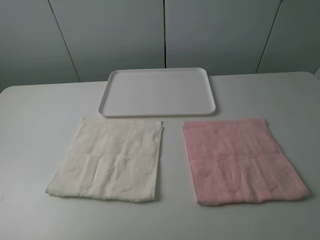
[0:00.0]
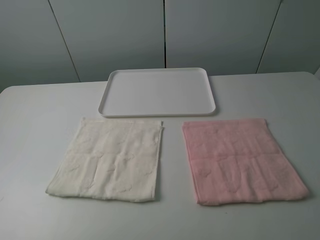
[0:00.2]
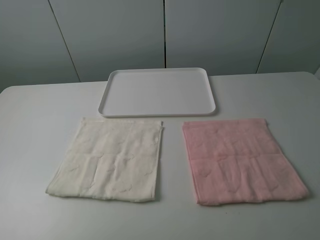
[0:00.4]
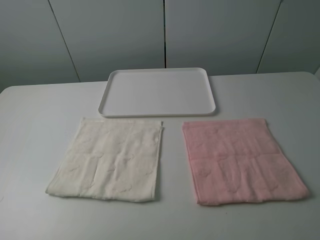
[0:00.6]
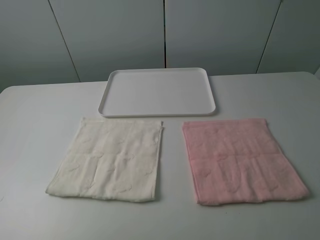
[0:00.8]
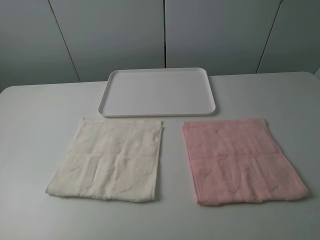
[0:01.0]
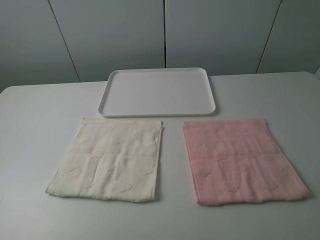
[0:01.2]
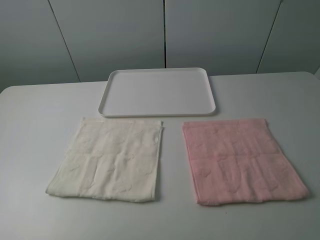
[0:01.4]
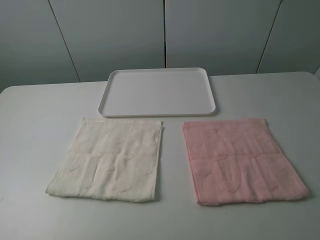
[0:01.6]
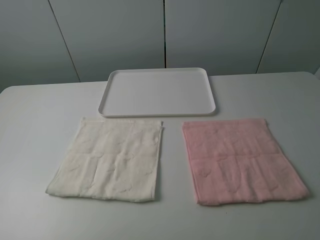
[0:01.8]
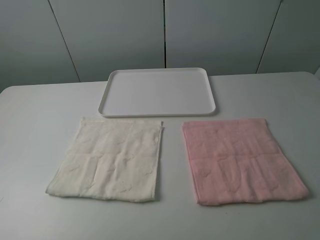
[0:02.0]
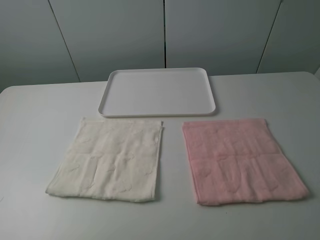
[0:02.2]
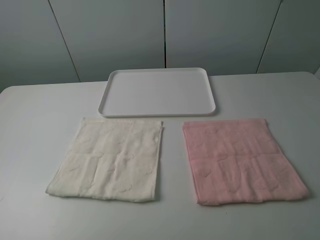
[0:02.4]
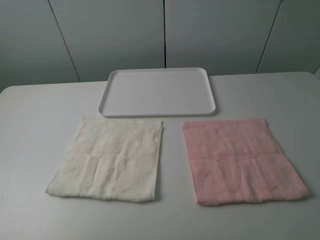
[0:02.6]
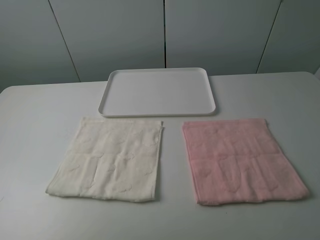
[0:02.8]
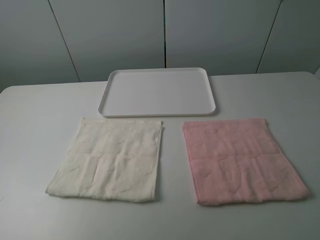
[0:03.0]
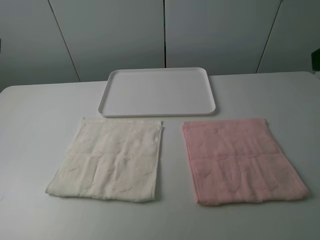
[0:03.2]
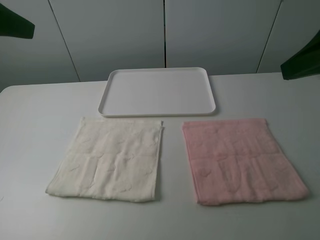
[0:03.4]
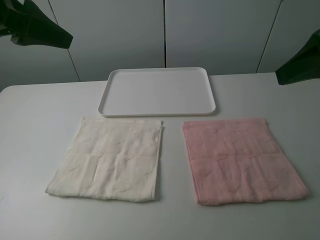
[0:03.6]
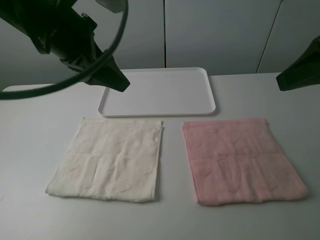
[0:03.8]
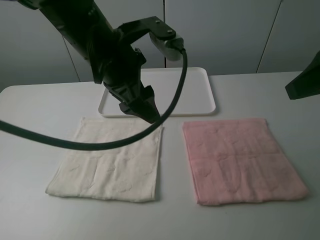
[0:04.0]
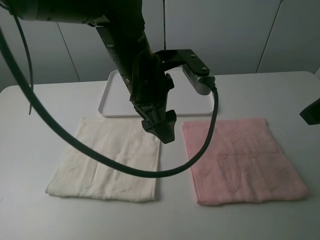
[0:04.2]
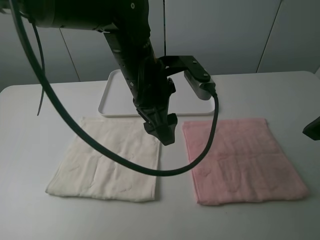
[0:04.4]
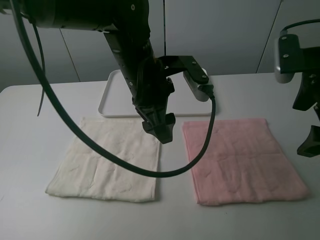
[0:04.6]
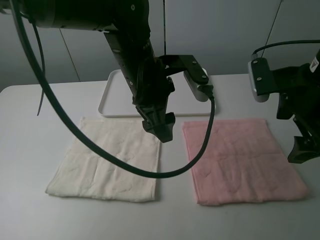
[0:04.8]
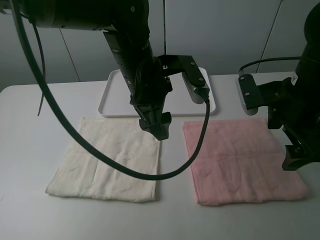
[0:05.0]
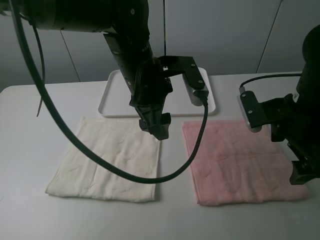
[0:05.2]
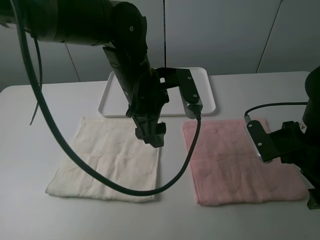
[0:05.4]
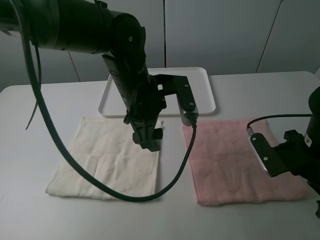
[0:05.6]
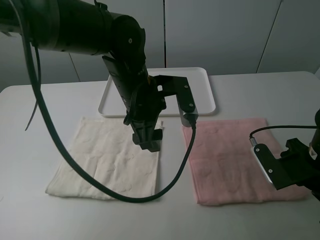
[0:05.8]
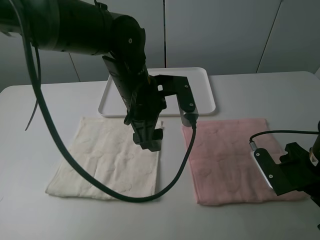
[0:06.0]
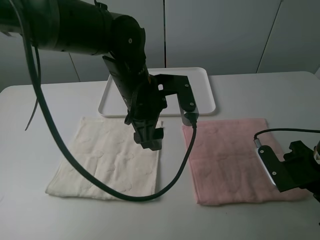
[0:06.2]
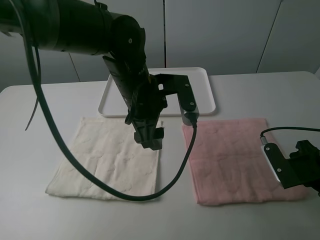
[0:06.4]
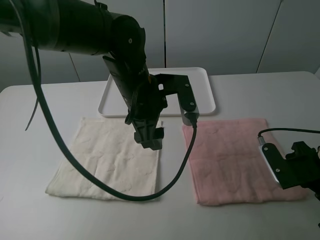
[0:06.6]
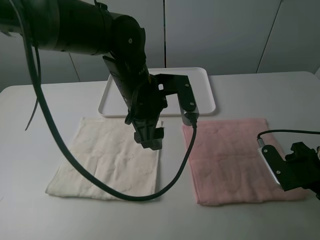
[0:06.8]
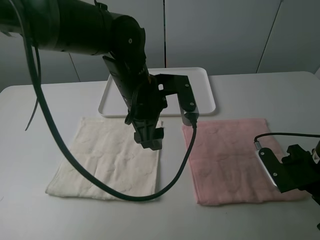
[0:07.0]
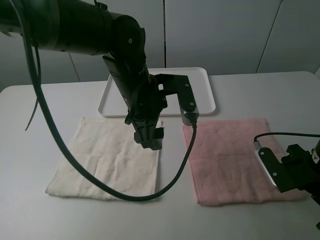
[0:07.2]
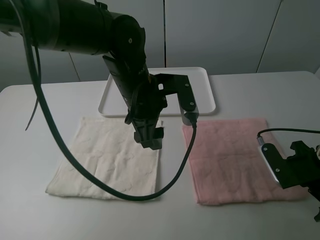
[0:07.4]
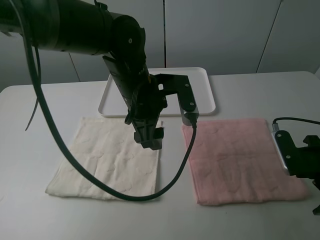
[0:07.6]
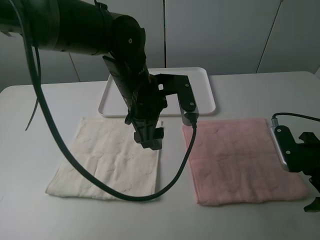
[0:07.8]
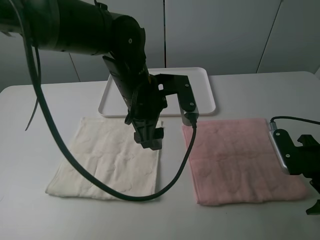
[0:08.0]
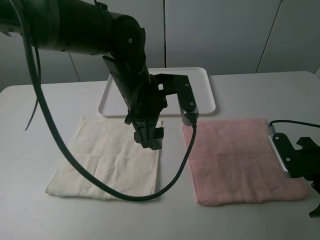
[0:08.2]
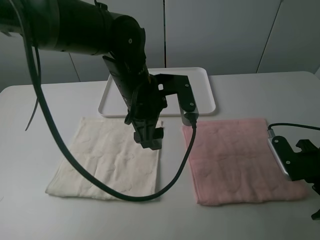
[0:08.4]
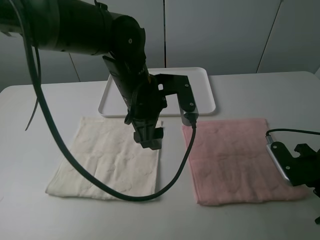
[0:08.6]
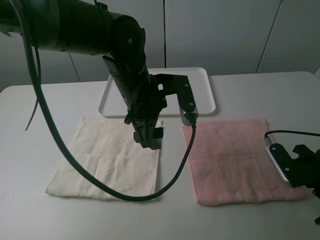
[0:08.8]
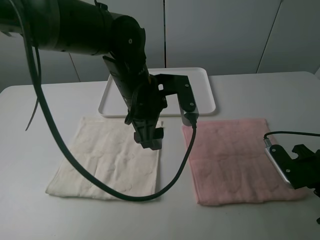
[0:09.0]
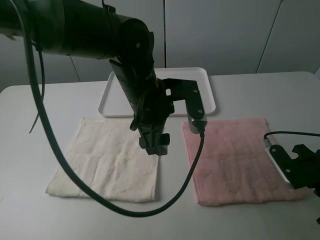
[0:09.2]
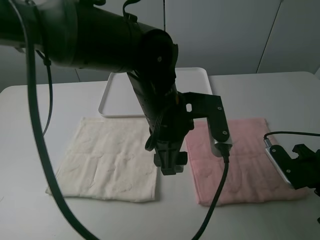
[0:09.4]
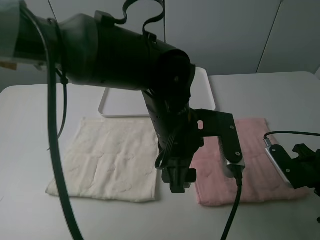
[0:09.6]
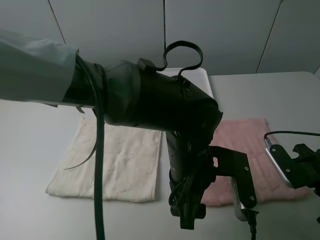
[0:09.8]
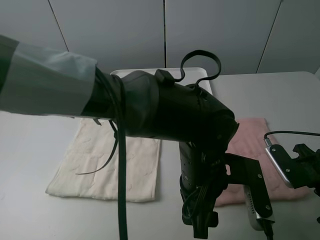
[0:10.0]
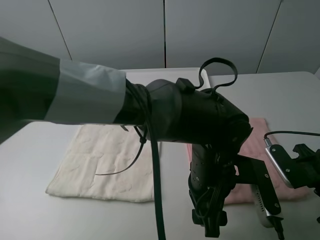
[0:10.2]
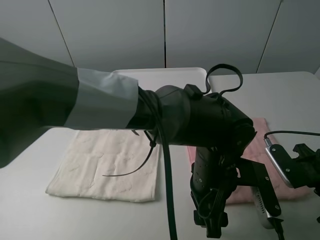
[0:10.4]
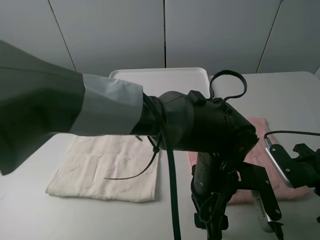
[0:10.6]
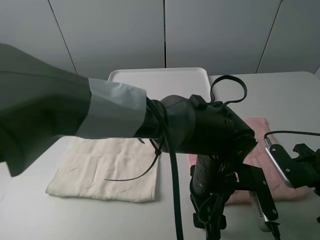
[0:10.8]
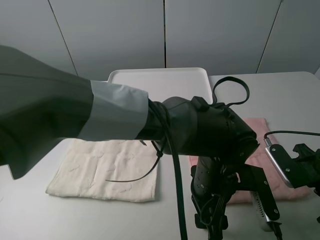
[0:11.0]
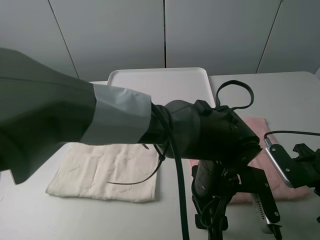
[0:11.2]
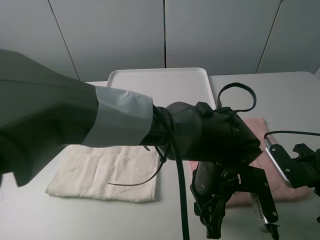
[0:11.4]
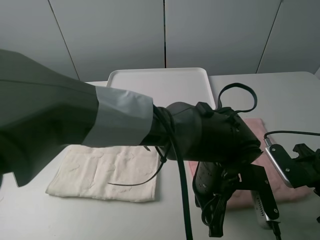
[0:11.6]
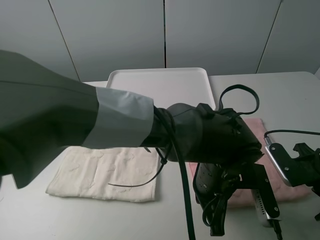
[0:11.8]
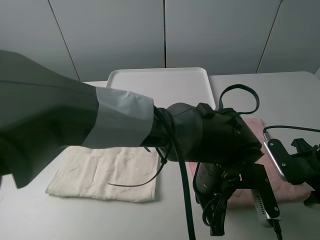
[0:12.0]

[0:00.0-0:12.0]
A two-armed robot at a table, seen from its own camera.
Task of the whole recording: fold one of the towels by two grippers and place it on the tray,then fold another towel by two grippers and place it on the folded towel.
0:00.0 to 0:01.6: Both grippers stay about where they are.
0:03.0 to 0:04.4: The left gripper heads to the right, forward and downward, covering some 35 cm, while the right gripper heads forward and downward, covering some 10 cm.
0:04.4 to 0:06.0: The right gripper shifts roughly 20 cm downward.
0:06.0 to 0:09.0: The grippers move only a little.
0:09.0 to 0:10.4: The left gripper travels to the right, backward and downward by about 20 cm.
0:10.4 to 0:12.0: The right gripper closes its fingers. Meanwhile the left gripper closes up.

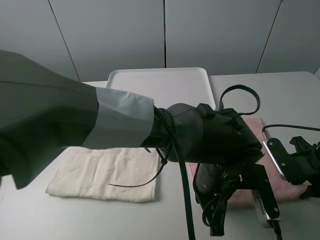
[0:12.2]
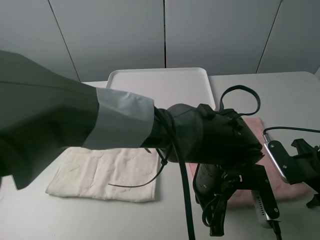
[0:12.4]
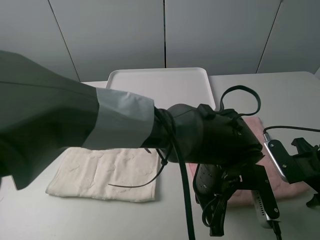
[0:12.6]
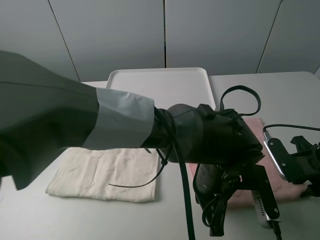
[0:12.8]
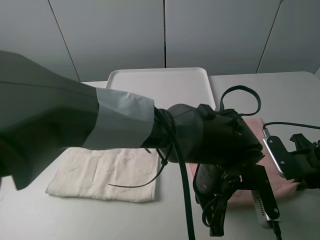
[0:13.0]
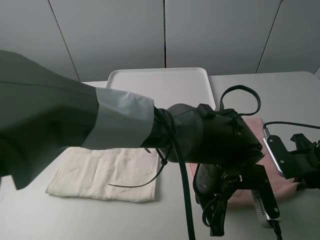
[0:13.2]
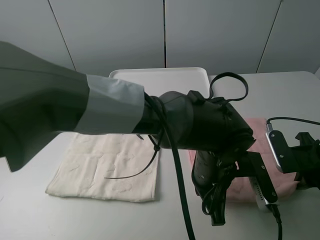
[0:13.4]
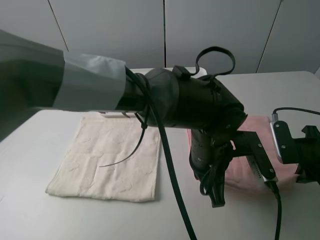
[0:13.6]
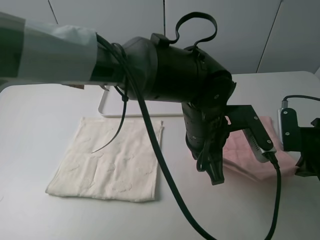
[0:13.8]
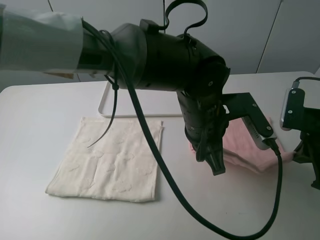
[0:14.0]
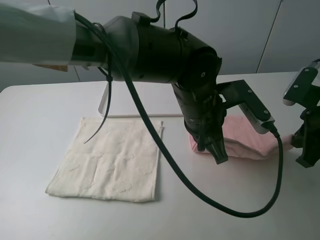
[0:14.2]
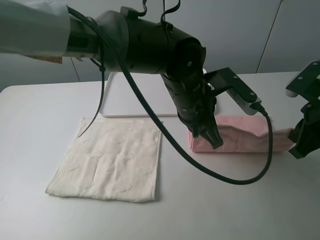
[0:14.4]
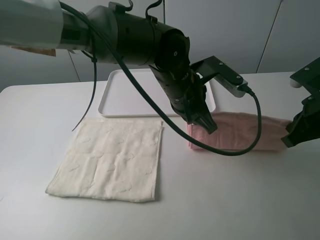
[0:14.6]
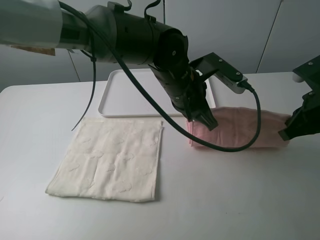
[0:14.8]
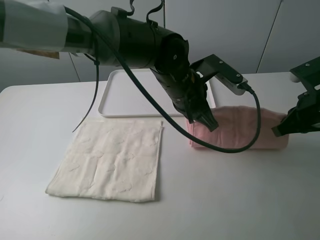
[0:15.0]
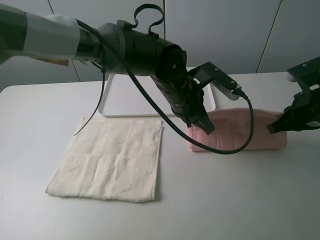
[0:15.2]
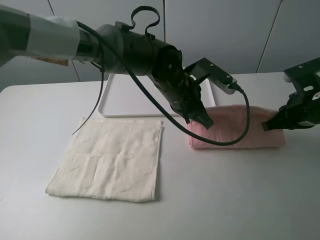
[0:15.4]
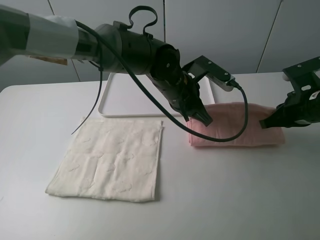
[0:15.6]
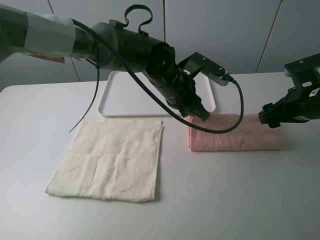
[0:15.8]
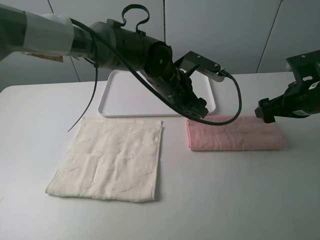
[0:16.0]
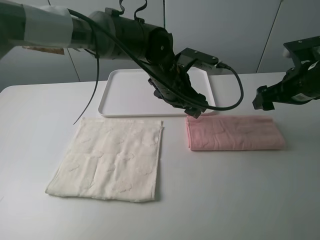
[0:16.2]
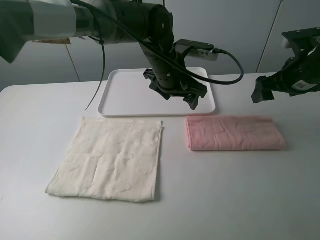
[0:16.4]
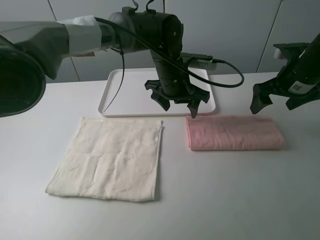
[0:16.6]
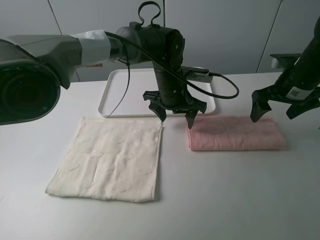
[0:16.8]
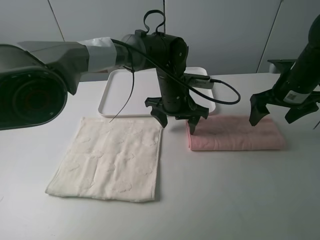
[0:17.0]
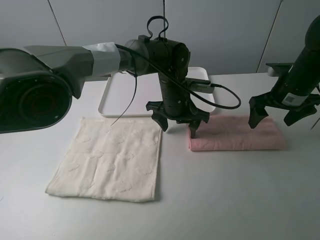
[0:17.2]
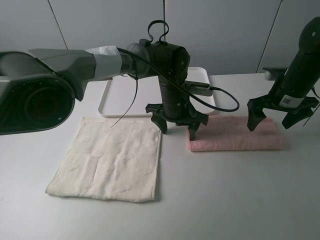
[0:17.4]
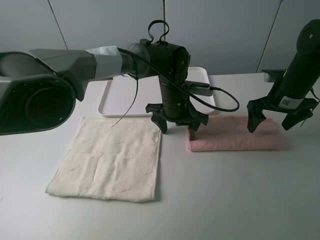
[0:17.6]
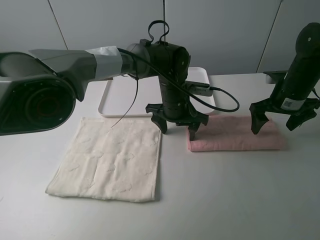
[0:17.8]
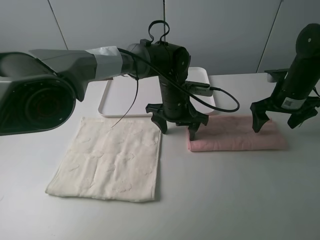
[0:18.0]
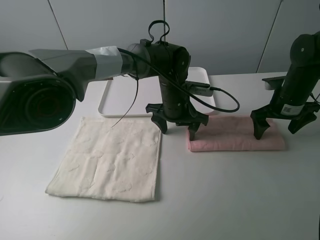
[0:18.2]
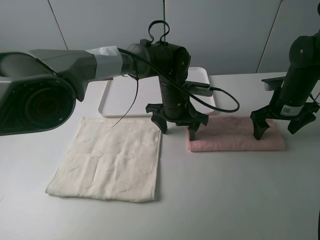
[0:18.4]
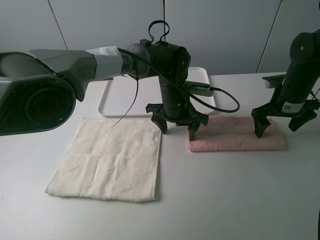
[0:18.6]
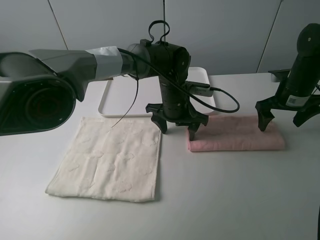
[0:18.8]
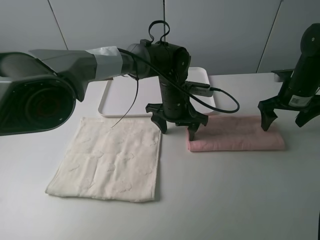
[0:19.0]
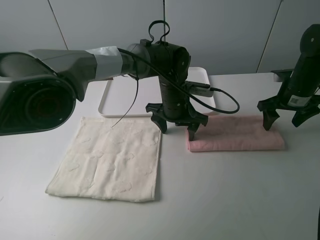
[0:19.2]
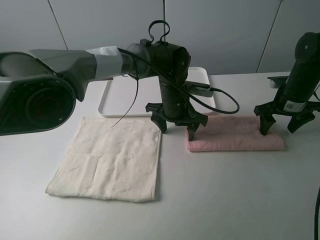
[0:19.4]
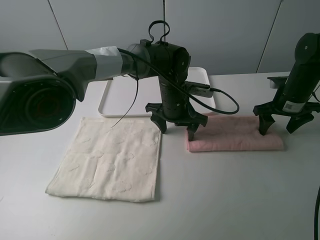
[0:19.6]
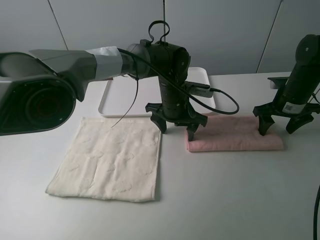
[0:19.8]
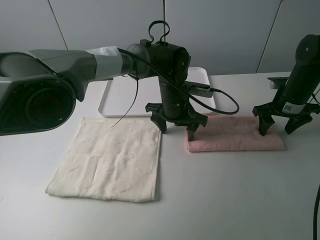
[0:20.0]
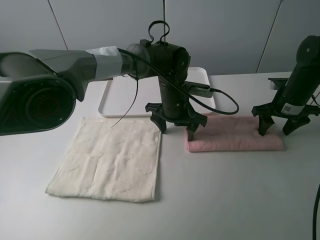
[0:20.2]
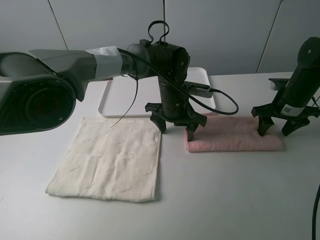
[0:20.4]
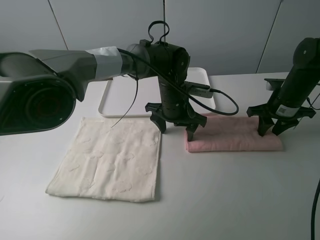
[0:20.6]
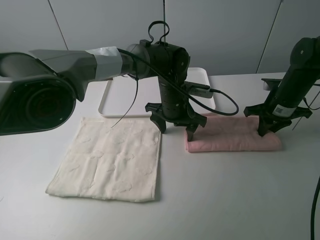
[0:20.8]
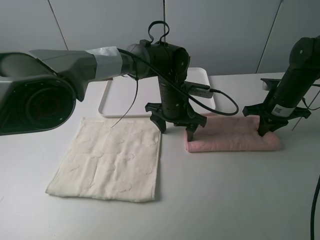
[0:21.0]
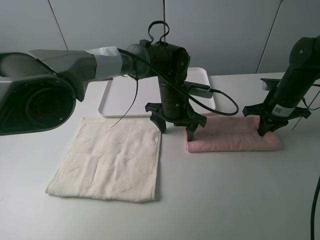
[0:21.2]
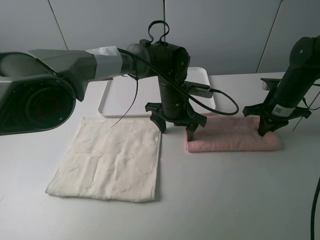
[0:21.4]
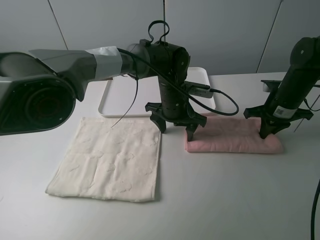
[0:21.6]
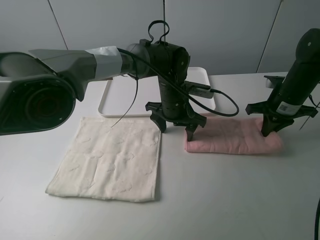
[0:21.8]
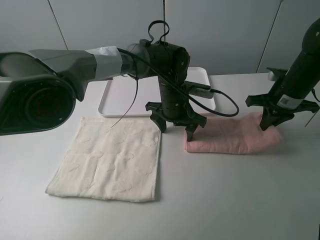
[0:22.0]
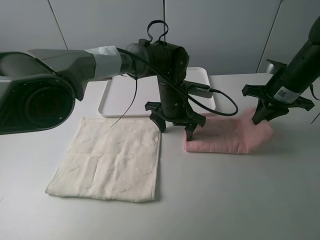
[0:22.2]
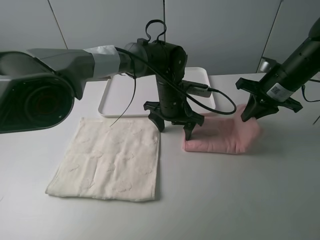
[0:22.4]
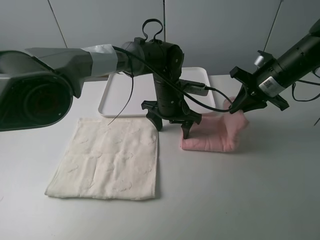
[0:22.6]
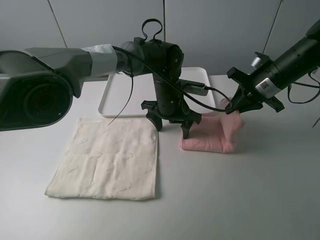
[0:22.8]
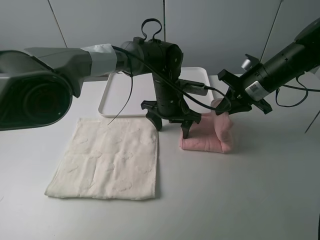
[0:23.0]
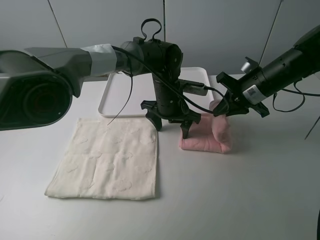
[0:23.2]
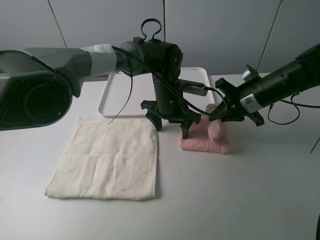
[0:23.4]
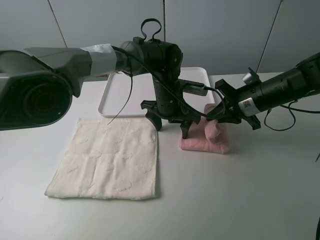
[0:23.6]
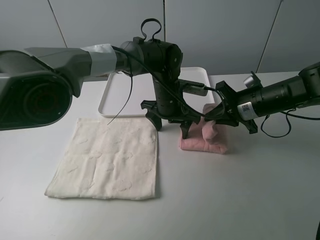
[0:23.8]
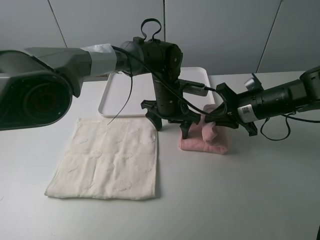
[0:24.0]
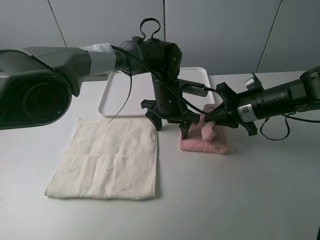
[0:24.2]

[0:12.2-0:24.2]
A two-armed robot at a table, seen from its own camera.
Task of the whole recording: fold one of the towels by two grippers and place it on the tray,then fold another towel by two grippers and place it on the folded towel.
Step, 0:13.4 to 0:16.0: Fold the pink towel upwards with the left gripper.
Step, 0:16.2 to 0:17.4: Press the pink towel with the left gripper.
Step, 0:17.6 to 0:21.2: Grasp the pink towel with the right gripper.
0:12.2 to 0:13.8: The right gripper closes its fingers. The left gripper goes some 10 cm upward and forward.
0:13.8 to 0:15.2: The two grippers go some 10 cm forward.
0:15.2 to 0:16.6: The grippers both shift forward by approximately 5 cm. The right gripper opens its fingers. The left gripper opens.
0:16.6 to 0:18.2: Both grippers move downward, roughly 5 cm.
0:18.2 to 0:19.8: The grippers stay close to where they were, moving slightly.
0:19.8 to 0:21.2: The right gripper closes its fingers.
0:21.2 to 0:22.6: The right gripper heads upward, covering about 10 cm.
0:22.6 to 0:24.2: The right gripper moves downward, some 5 cm.
